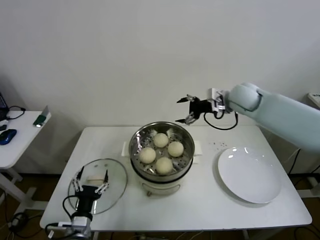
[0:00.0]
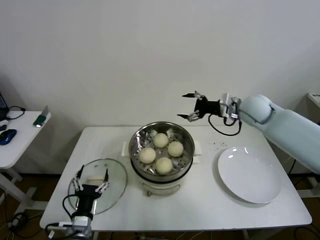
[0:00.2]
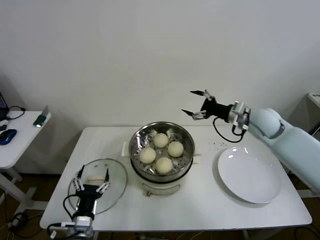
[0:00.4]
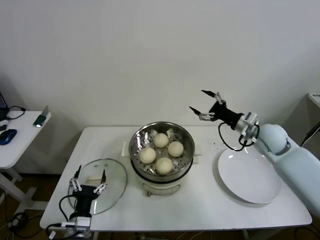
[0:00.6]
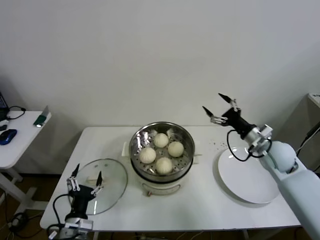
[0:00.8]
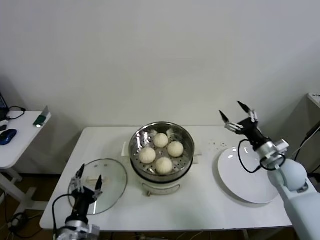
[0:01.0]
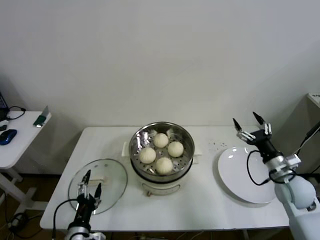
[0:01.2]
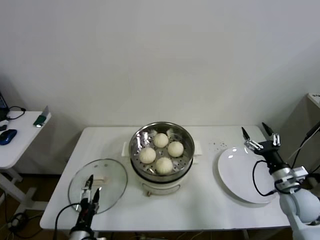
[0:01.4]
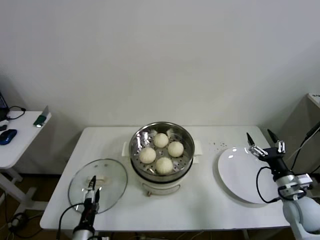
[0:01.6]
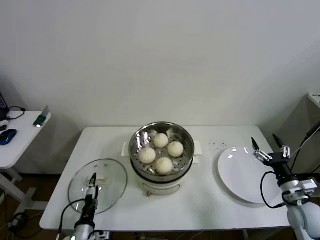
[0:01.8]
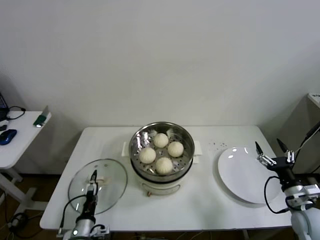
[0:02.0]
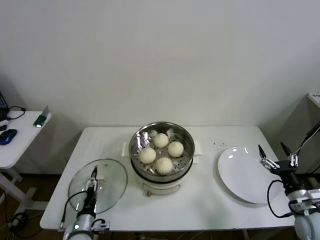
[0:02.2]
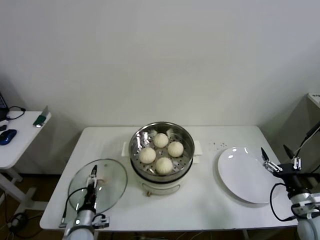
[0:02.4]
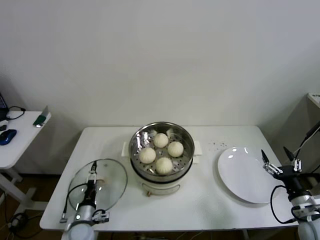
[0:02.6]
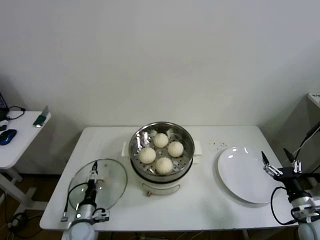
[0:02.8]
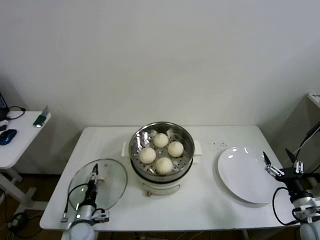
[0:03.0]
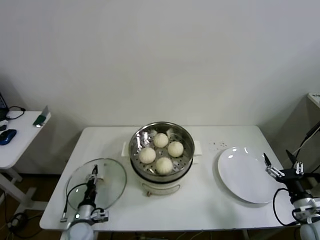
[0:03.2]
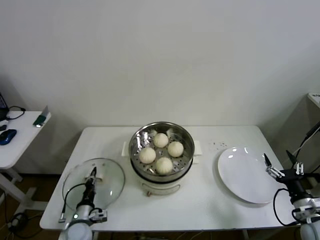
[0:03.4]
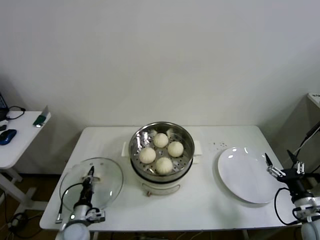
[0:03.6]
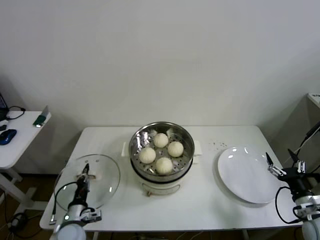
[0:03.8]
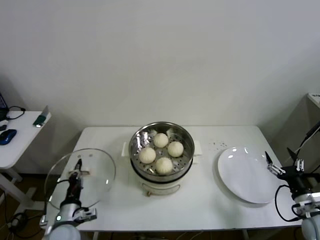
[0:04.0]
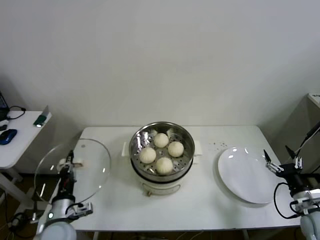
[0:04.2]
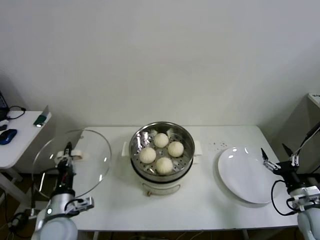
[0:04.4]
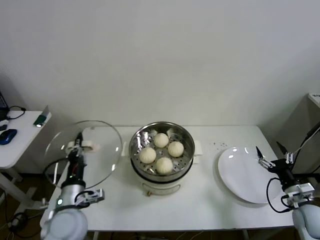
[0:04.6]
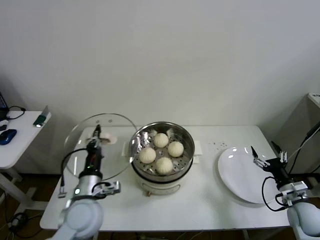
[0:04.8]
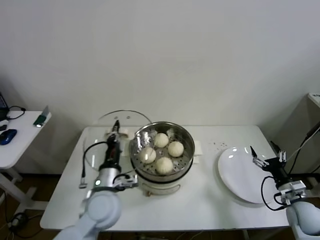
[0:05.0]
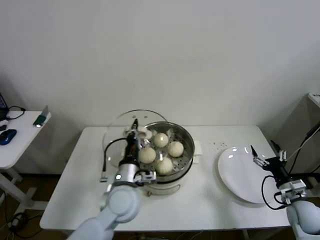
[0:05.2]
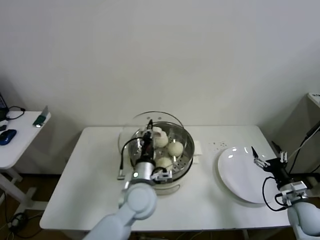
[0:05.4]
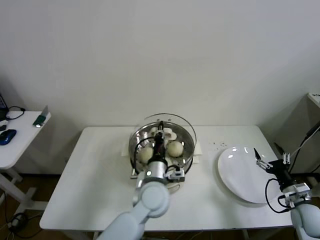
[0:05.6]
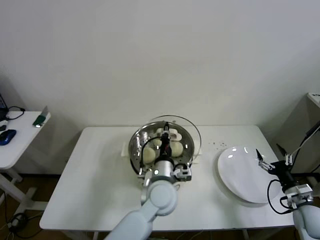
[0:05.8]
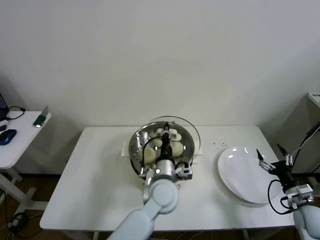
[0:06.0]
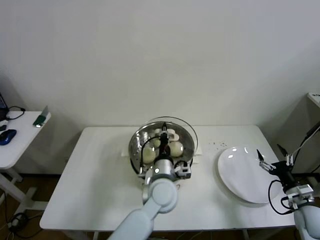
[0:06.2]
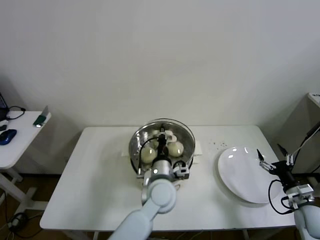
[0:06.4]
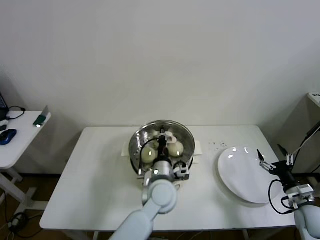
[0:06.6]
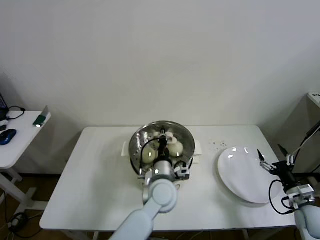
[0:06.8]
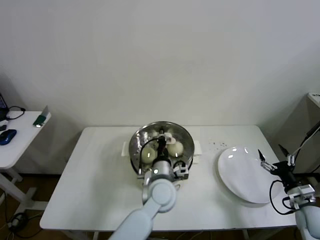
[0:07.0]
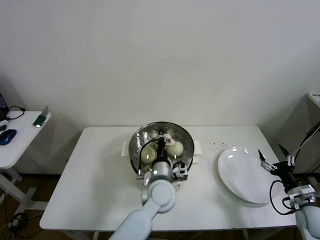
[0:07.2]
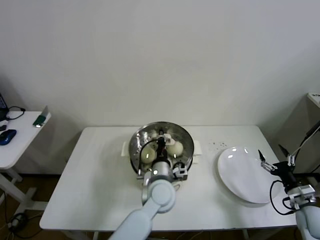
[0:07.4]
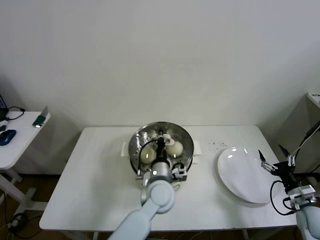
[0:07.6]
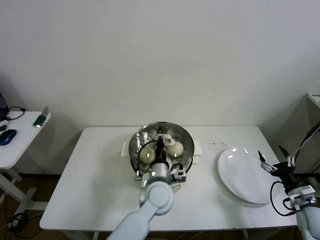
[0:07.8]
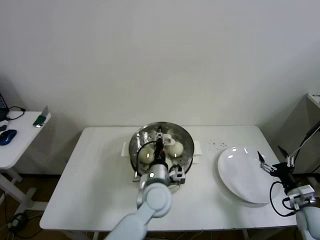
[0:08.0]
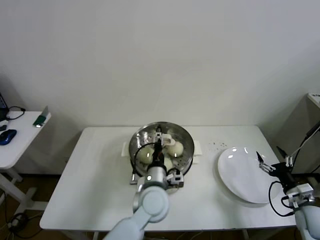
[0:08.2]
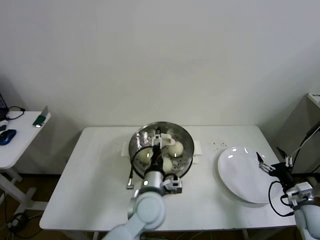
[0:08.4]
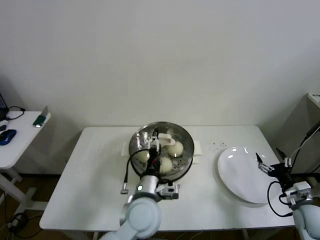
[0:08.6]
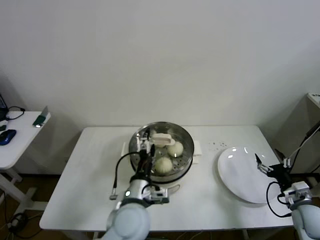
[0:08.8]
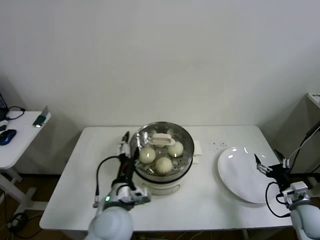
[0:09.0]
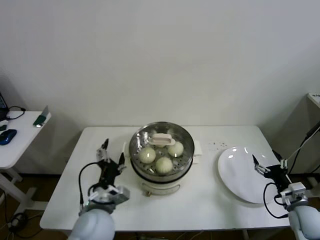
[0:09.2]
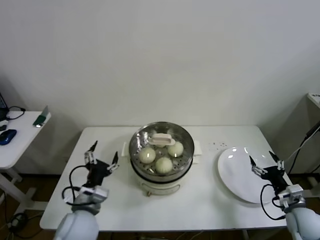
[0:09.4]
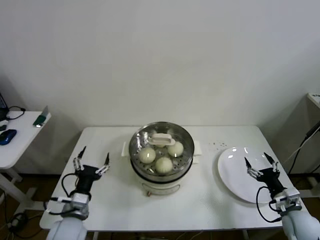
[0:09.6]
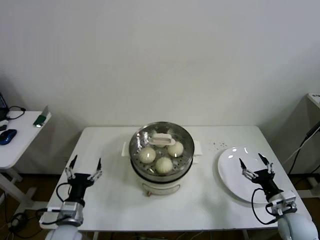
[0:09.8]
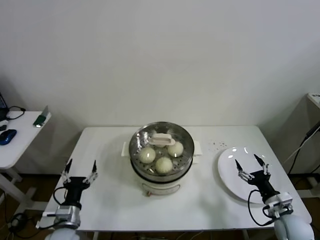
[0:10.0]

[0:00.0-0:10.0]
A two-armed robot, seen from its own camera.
Step, 0:00.0 to 0:03.4: Grasp the pot lid with left gripper.
Step, 0:03.6 to 0:08.4: Place the pot lid on the steamer with left gripper.
0:00.0 to 0:01.4: The right gripper travels backward, downward and to the right by approximately 35 cm.
0:01.4 to 0:02.8: The left gripper travels forward and downward by some 15 cm. Meanwhile the right gripper moves backward, some 10 cm.
0:02.8 to 0:04.2: The left gripper moves upward, roughly 10 cm, and closes up.
0:04.2 to 0:05.8: The left gripper travels to the right by roughly 30 cm.
0:05.8 to 0:07.2: The grippers stay close to where they were, moving slightly.
0:07.2 to 0:08.6: The left gripper goes some 5 cm backward, and opens up.
0:08.6 to 0:10.0: The left gripper shifts roughly 25 cm to the left; the right gripper is displaced to the left by about 5 cm.
